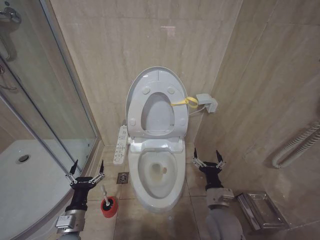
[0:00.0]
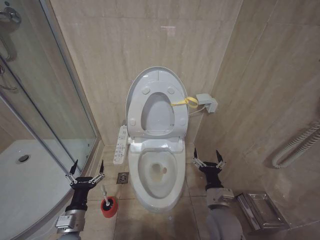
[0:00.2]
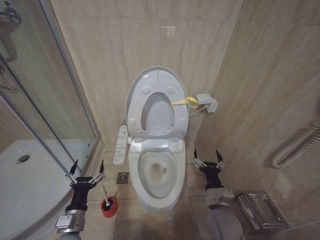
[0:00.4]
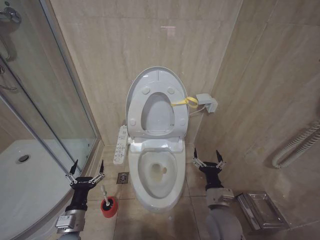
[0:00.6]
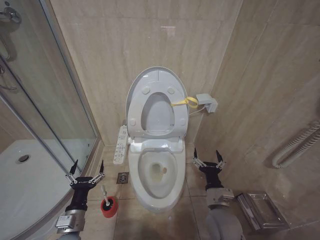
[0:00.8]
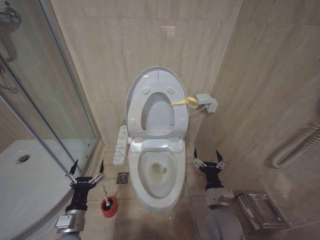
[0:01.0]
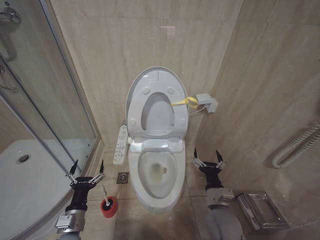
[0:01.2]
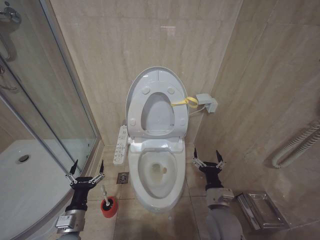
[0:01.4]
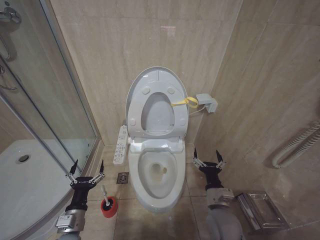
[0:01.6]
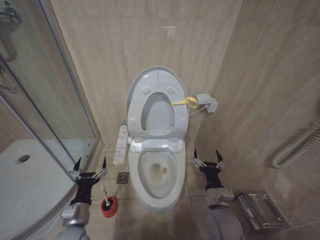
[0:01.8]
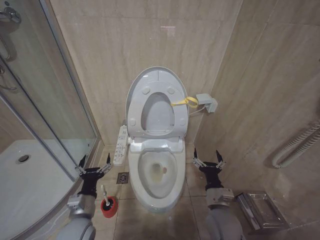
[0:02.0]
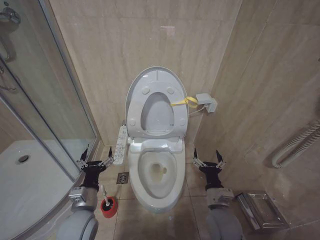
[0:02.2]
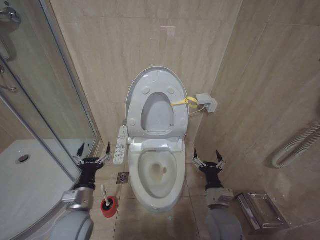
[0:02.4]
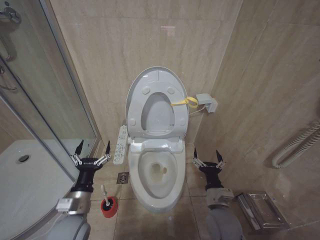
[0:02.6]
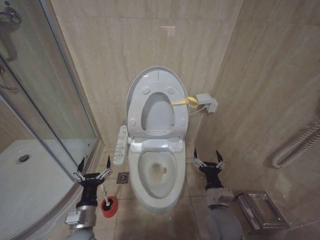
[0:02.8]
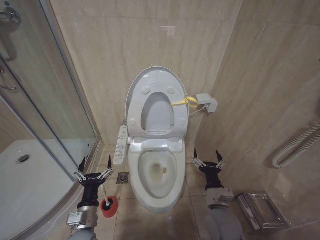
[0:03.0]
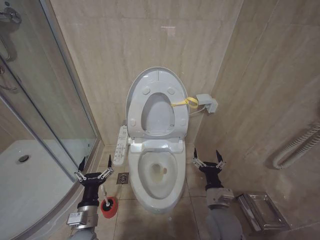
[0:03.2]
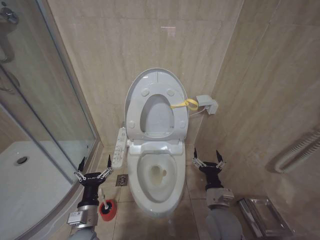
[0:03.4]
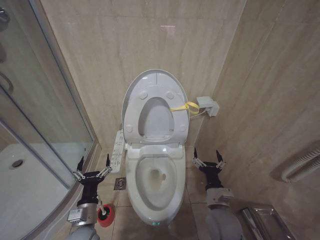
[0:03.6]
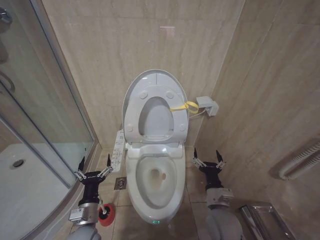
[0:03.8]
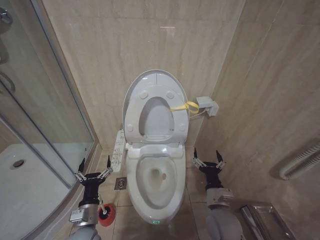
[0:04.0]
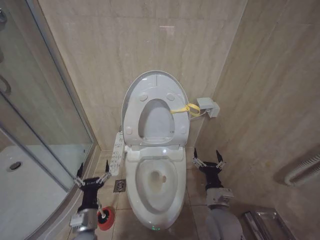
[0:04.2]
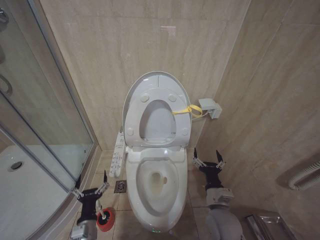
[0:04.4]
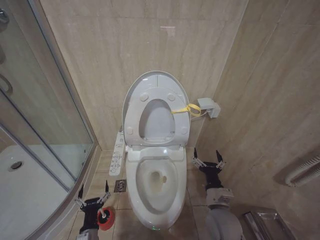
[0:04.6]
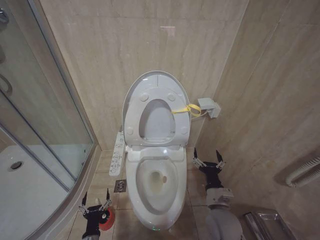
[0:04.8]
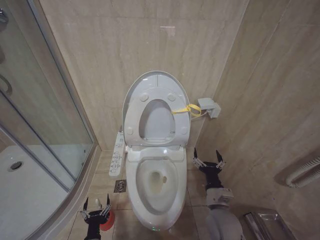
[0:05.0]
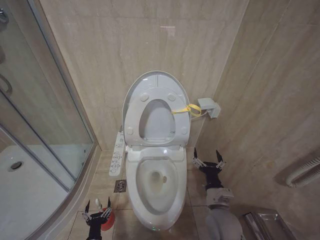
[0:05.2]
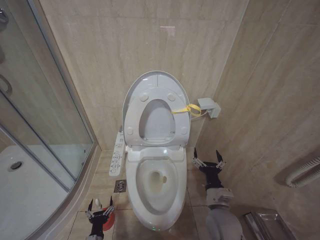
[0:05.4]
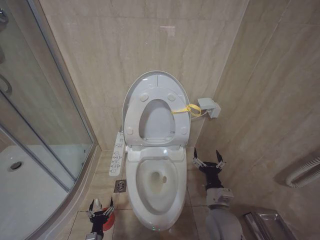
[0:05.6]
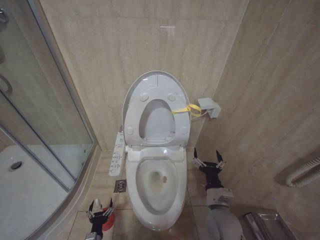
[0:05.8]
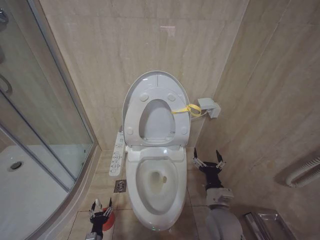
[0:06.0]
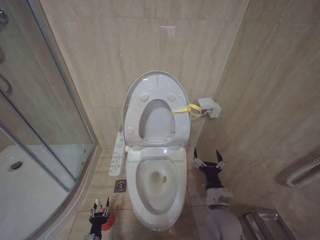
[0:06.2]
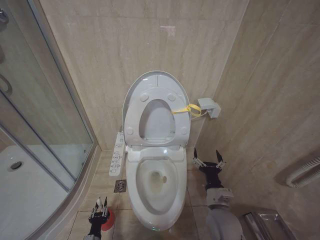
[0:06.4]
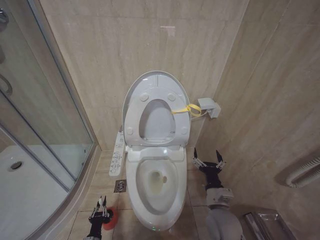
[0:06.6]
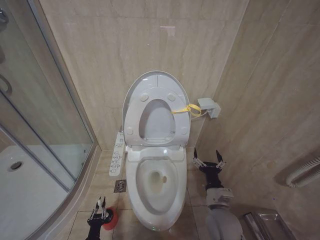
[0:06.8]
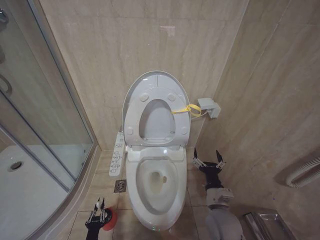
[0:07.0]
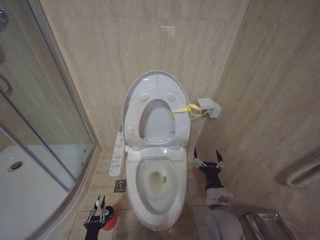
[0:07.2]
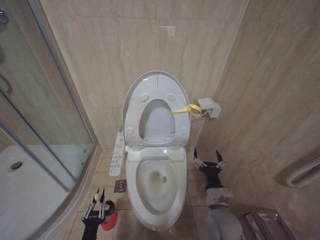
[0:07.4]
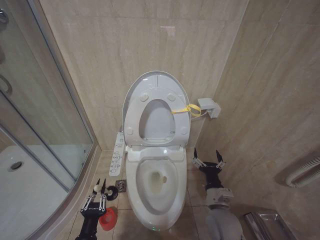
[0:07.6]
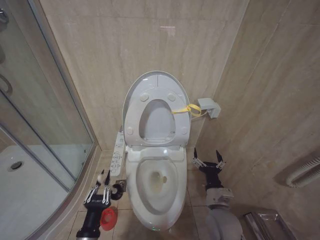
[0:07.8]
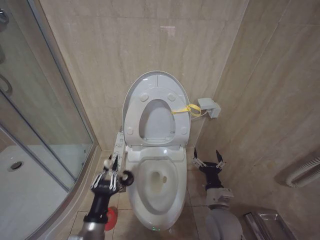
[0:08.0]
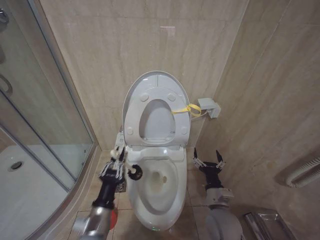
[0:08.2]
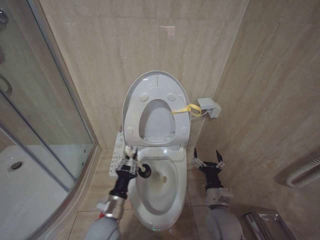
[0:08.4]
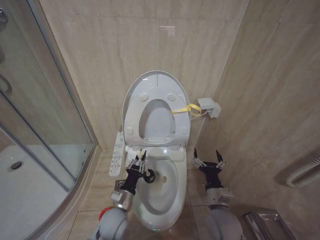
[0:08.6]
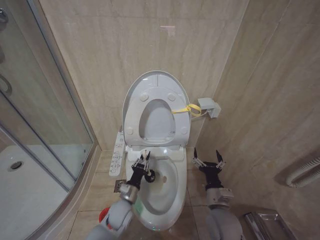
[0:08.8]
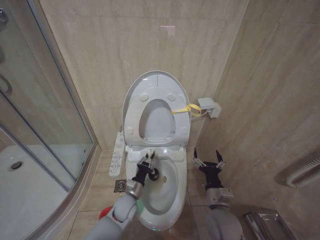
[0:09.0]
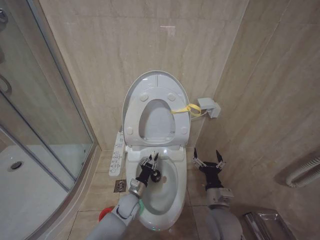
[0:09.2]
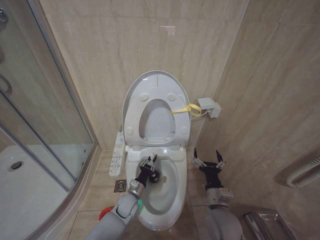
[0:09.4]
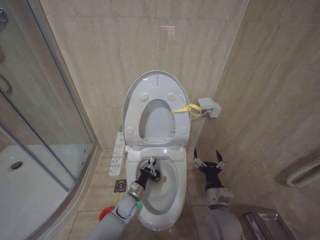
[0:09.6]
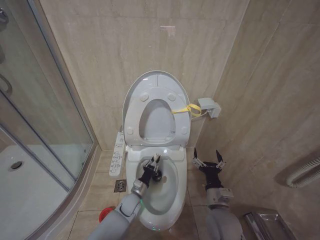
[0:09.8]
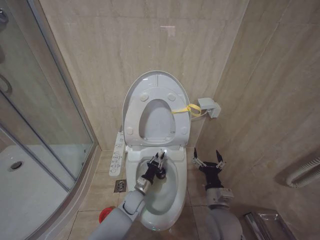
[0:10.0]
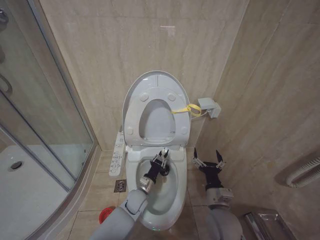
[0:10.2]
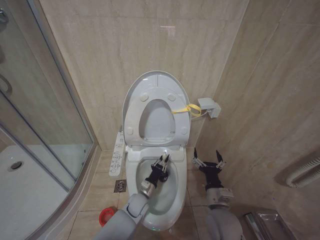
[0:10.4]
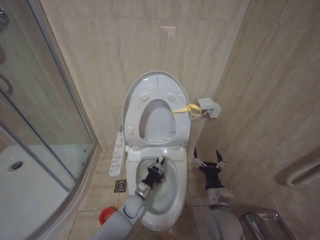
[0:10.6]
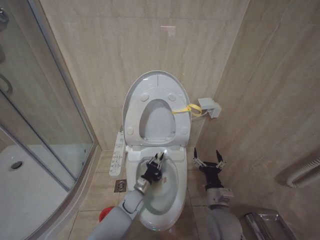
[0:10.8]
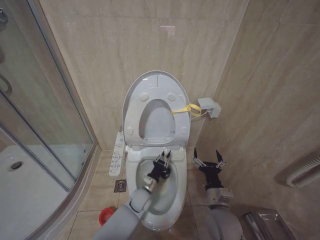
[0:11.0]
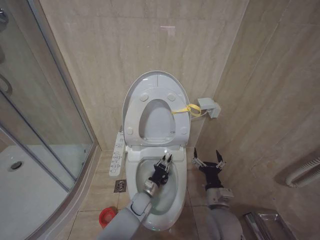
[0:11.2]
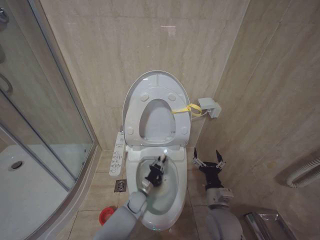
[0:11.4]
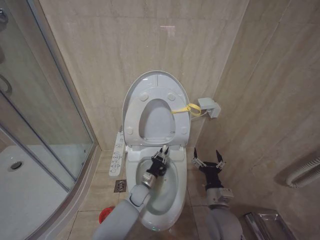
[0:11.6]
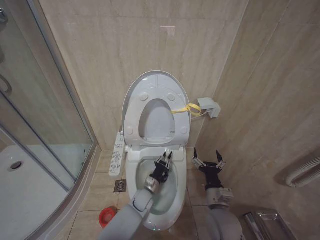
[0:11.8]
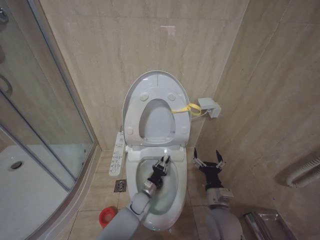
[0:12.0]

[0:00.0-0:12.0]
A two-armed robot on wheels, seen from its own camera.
Task of the whole recording: Open the toilet lid, clean the toilet bowl with a toilet brush, close the toilet lid, and flush.
0:00.0 to 0:01.6: Both grippers stay about where they are.
0:03.0 to 0:04.4: The left gripper shifts about 5 cm downward.
0:04.4 to 0:06.0: The left gripper travels downward by roughly 20 cm.
0:06.0 to 0:07.6: The left gripper is displaced upward by approximately 20 cm, and closes.
0:07.6 to 0:09.0: The left gripper goes about 25 cm forward and to the right.
0:09.0 to 0:10.4: The left gripper moves to the right, some 5 cm.

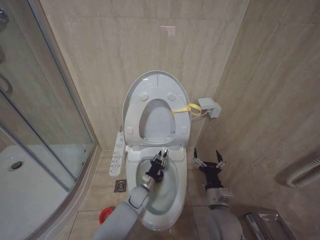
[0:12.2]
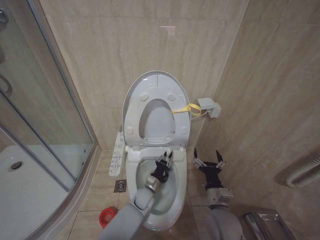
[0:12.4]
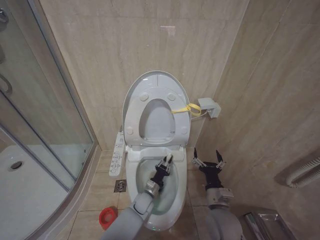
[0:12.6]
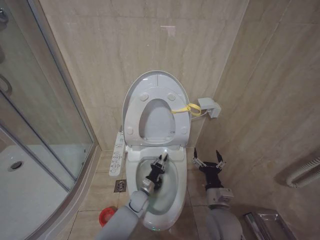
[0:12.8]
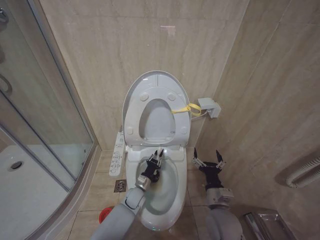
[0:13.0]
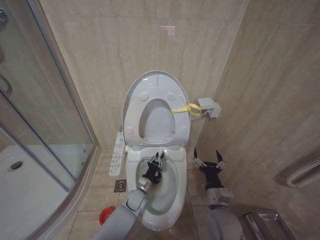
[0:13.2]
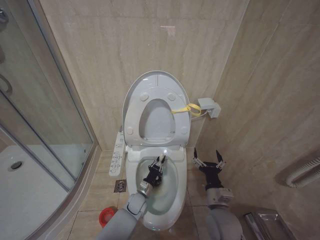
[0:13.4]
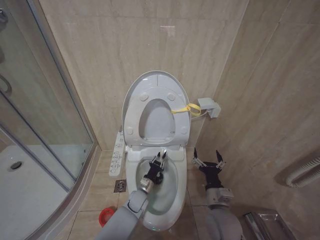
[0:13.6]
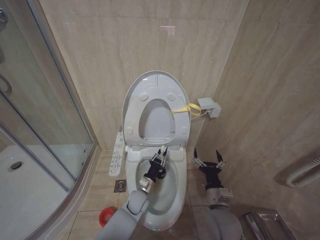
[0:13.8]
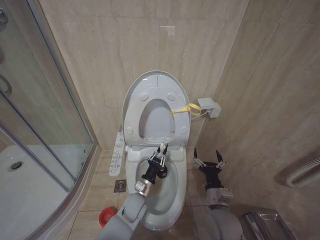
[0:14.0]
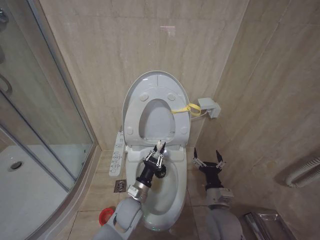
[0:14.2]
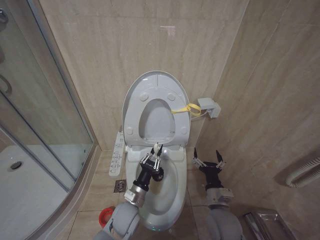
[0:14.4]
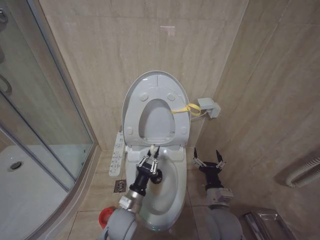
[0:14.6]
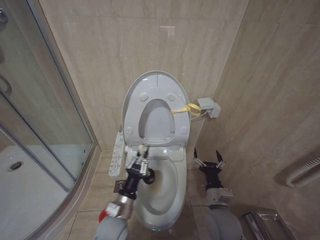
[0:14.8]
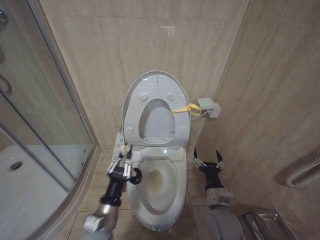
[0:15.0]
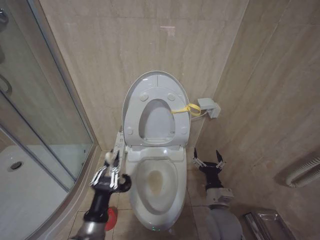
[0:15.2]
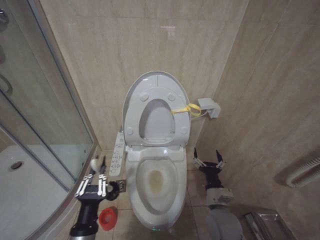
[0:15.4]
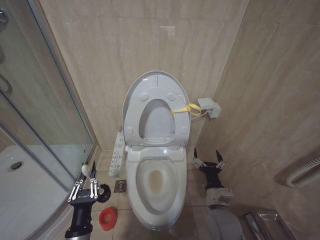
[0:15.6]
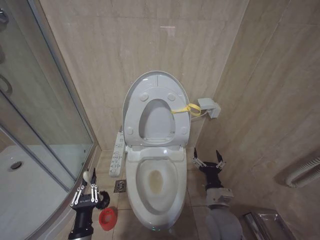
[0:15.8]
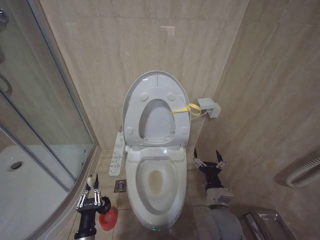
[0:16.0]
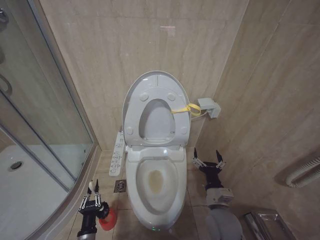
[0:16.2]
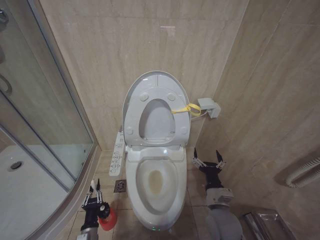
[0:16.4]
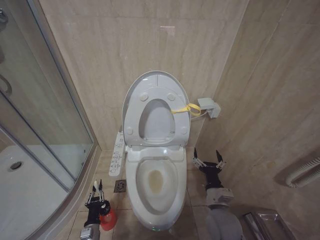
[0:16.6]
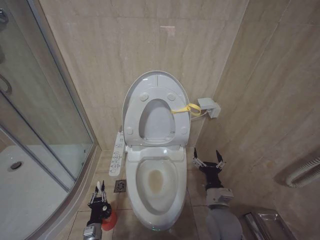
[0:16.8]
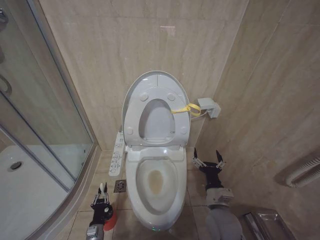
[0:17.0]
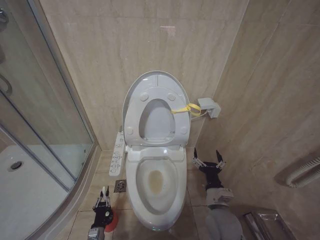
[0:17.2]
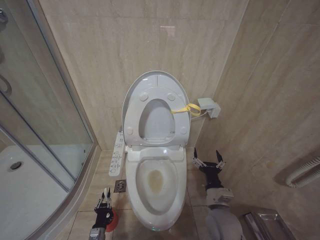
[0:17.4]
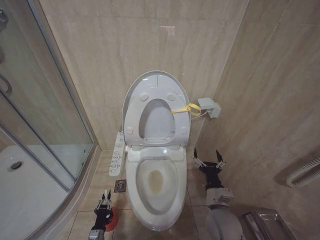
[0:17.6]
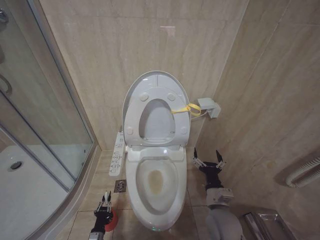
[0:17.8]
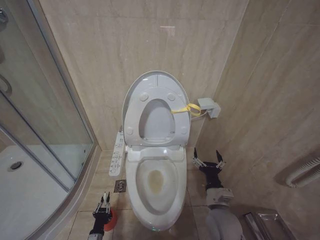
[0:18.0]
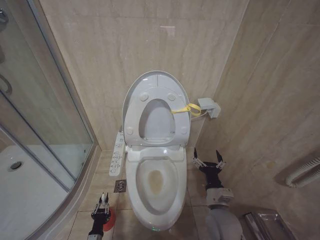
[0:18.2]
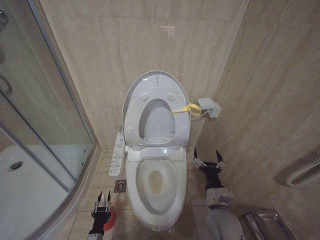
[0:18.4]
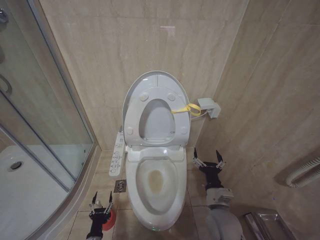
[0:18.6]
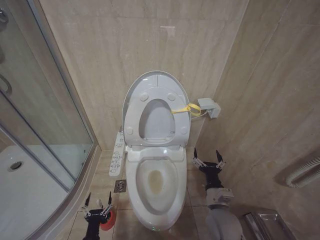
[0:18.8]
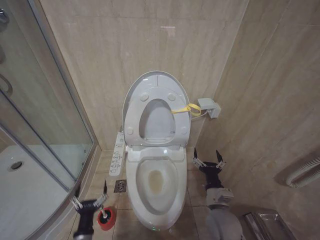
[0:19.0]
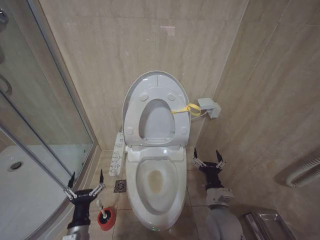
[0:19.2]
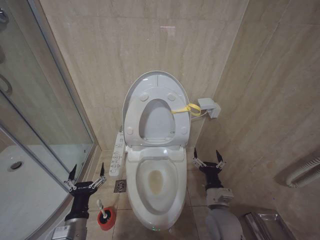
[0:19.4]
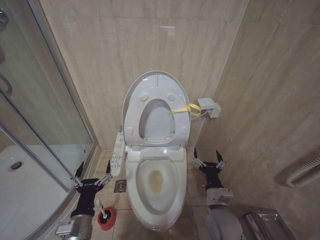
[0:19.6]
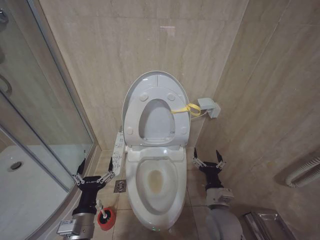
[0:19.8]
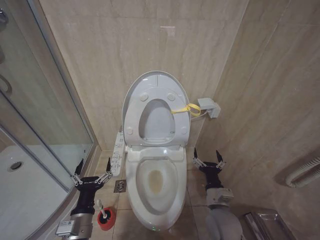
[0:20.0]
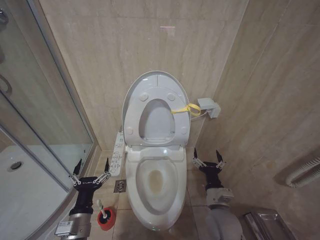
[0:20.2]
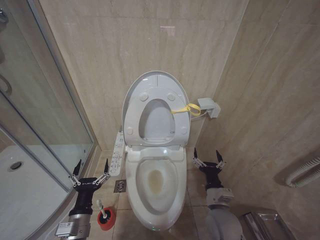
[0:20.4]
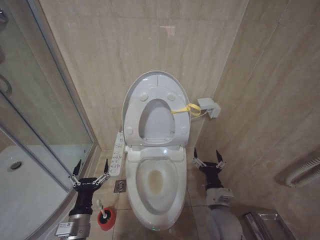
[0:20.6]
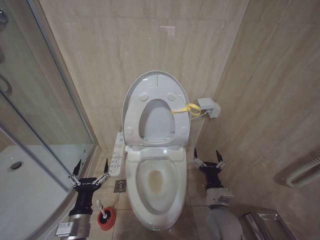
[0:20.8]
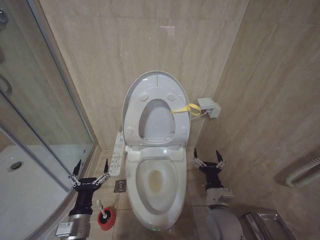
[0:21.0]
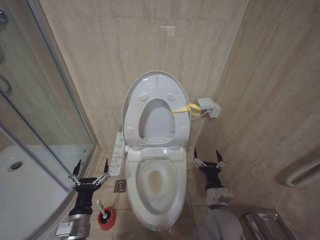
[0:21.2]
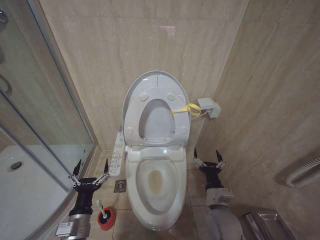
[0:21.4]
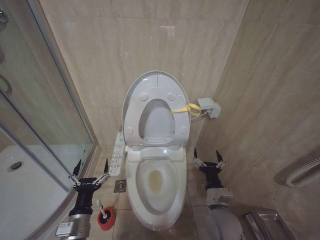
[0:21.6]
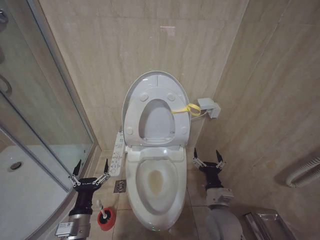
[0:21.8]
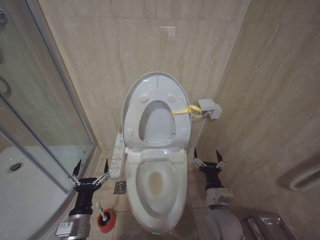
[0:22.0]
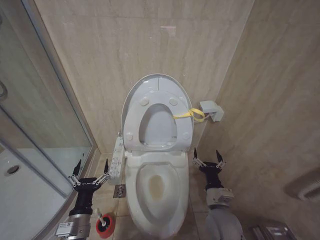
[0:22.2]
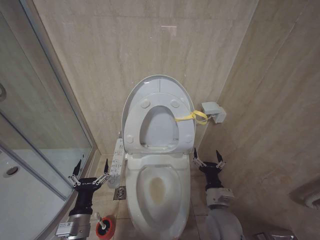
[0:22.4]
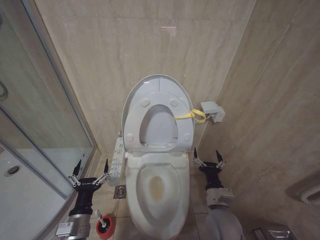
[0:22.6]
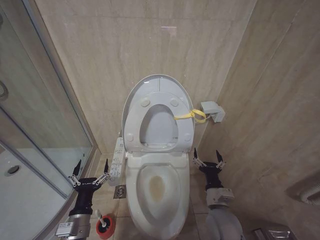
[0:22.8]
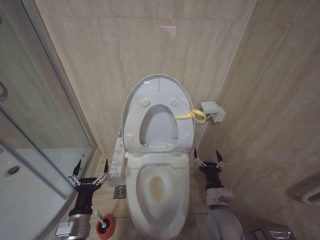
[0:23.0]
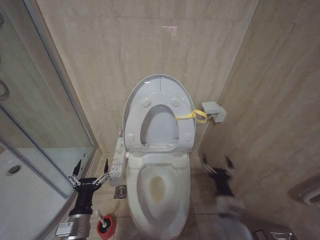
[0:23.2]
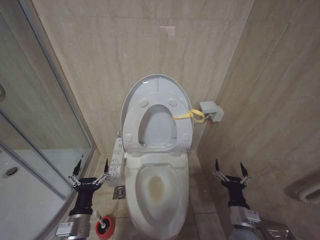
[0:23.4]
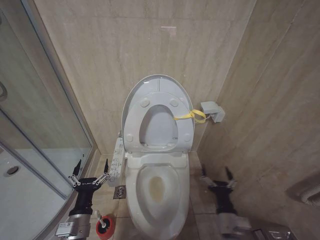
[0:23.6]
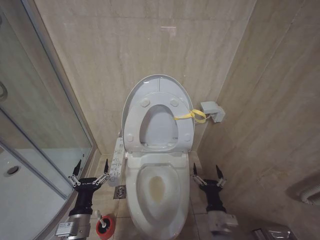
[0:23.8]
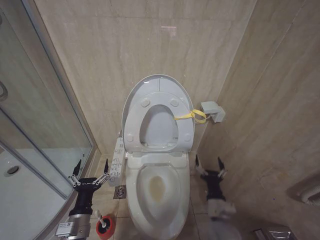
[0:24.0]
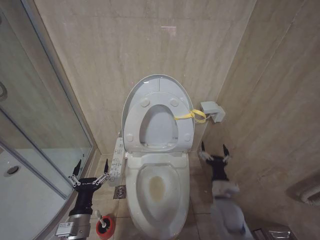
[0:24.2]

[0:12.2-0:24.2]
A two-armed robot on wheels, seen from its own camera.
Task of the whole recording: Open the toilet lid, clean the toilet bowl with a toilet brush, close the toilet lid, and flush.
0:13.8 to 0:15.2: The left gripper moves backward, upward and to the left, about 30 cm.
0:15.2 to 0:16.6: The left gripper shifts about 25 cm downward.
0:16.6 to 0:18.2: The left gripper moves downward, some 10 cm.
0:18.2 to 0:19.8: The left gripper heads upward, covering approximately 30 cm, and opens up.
0:19.8 to 0:21.2: The grippers move only a little.
0:21.2 to 0:22.6: The two grippers keep their place.
0:22.6 to 0:24.2: The right gripper travels backward and back again, about 5 cm each way.
